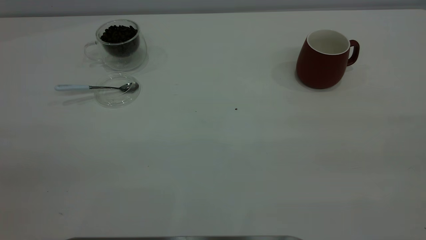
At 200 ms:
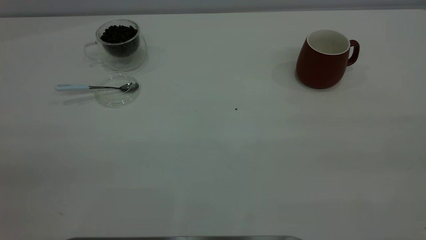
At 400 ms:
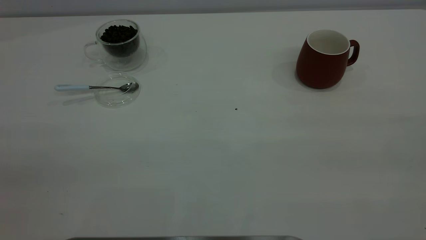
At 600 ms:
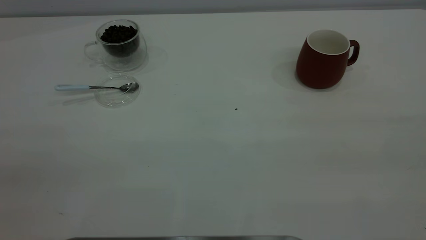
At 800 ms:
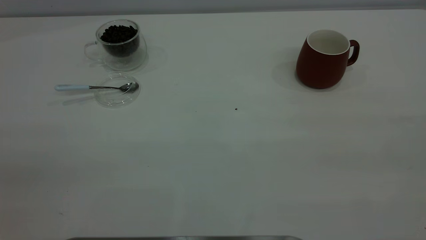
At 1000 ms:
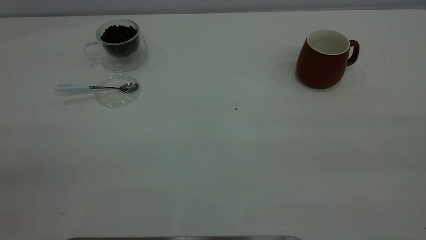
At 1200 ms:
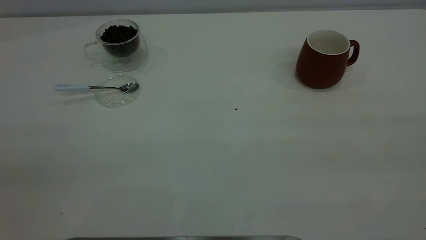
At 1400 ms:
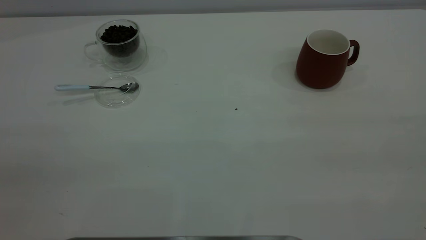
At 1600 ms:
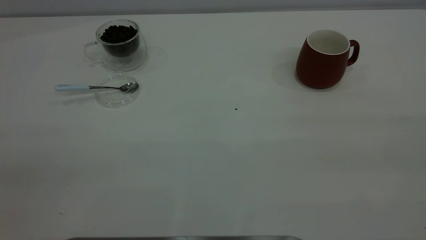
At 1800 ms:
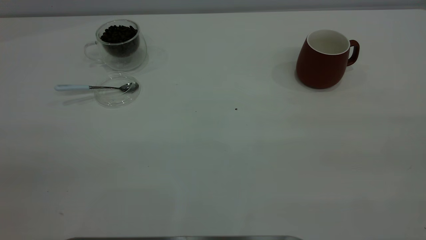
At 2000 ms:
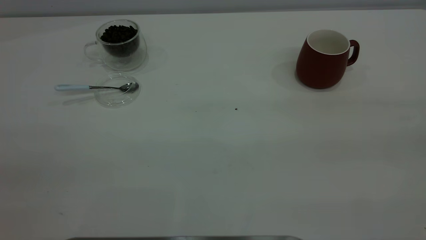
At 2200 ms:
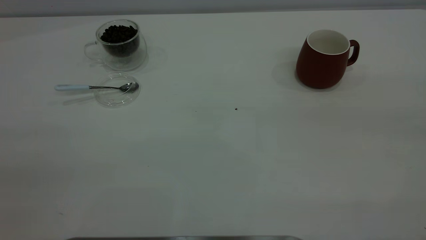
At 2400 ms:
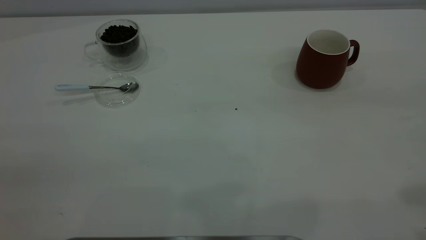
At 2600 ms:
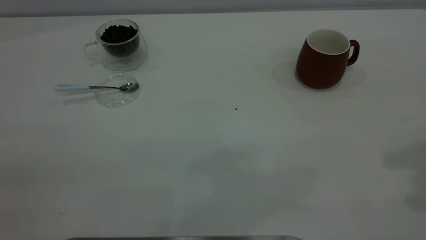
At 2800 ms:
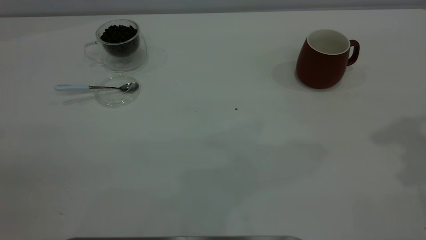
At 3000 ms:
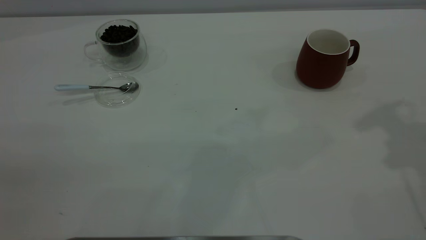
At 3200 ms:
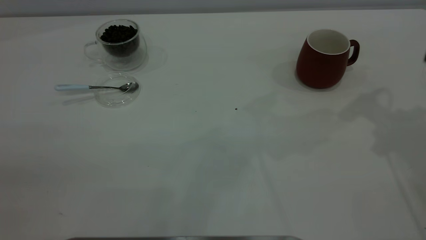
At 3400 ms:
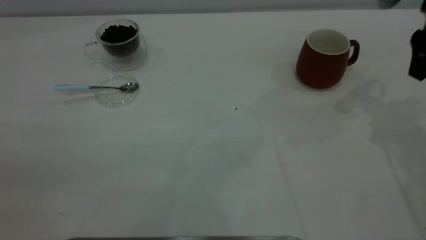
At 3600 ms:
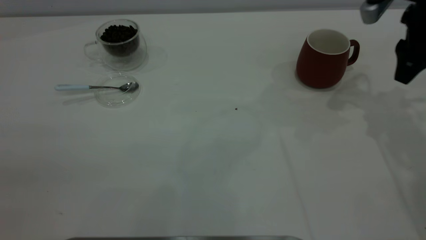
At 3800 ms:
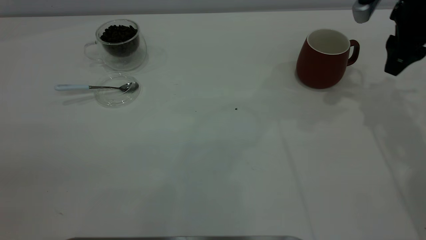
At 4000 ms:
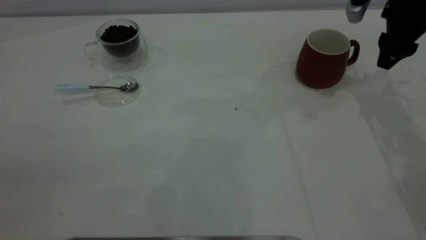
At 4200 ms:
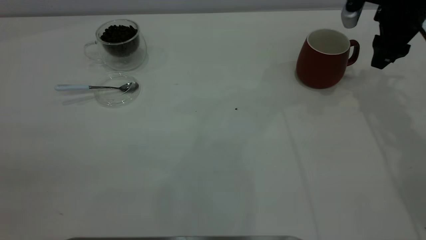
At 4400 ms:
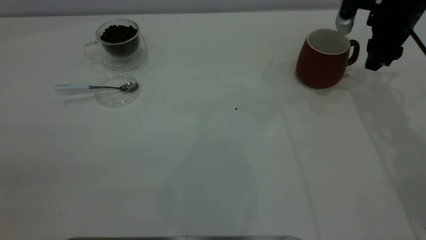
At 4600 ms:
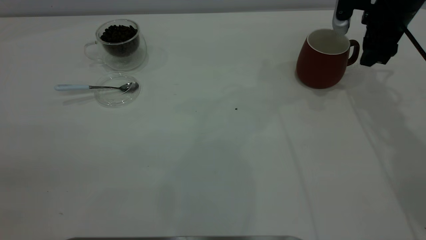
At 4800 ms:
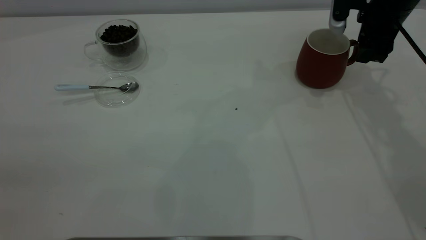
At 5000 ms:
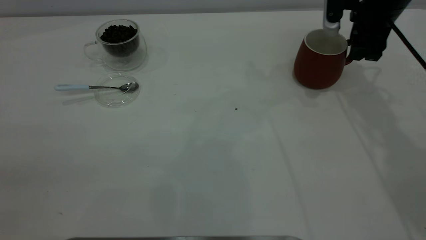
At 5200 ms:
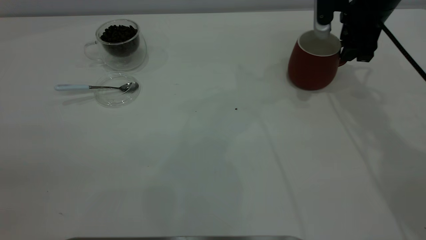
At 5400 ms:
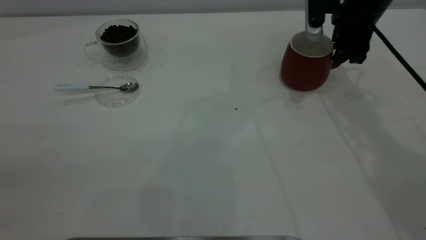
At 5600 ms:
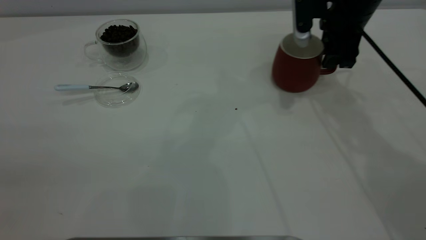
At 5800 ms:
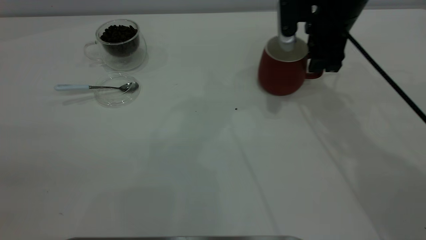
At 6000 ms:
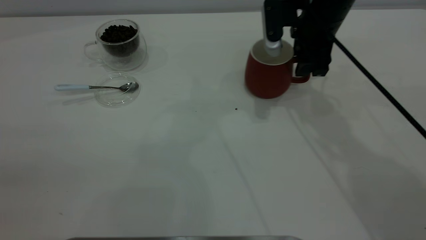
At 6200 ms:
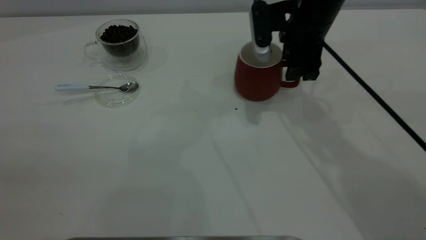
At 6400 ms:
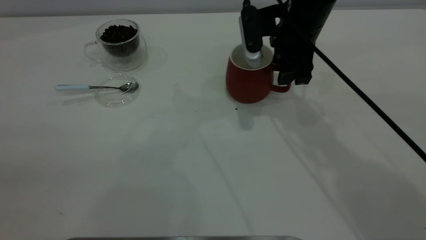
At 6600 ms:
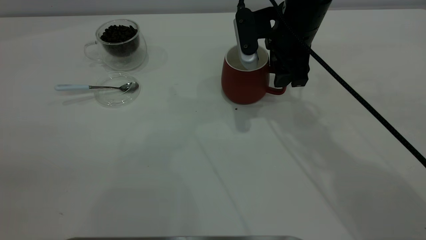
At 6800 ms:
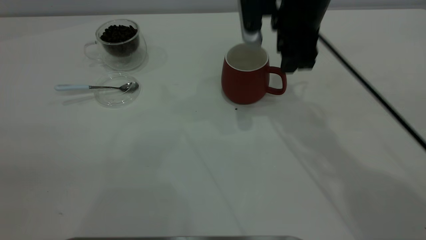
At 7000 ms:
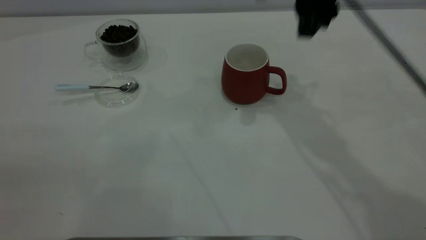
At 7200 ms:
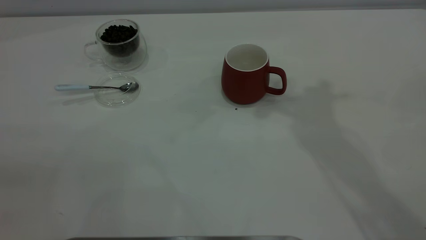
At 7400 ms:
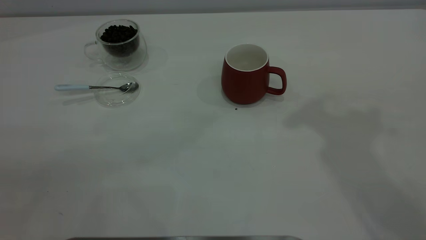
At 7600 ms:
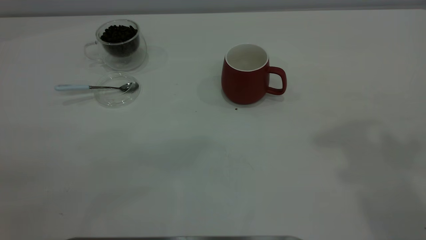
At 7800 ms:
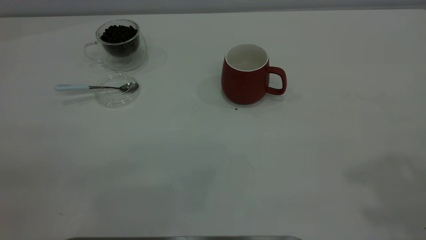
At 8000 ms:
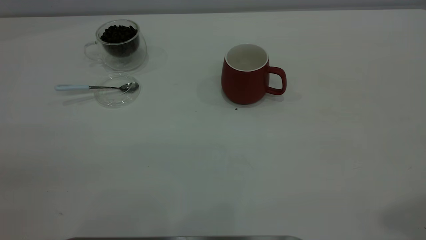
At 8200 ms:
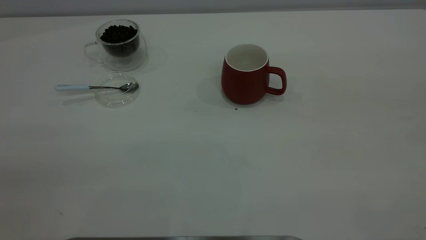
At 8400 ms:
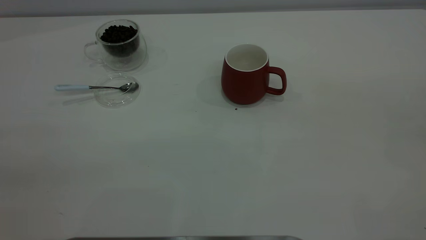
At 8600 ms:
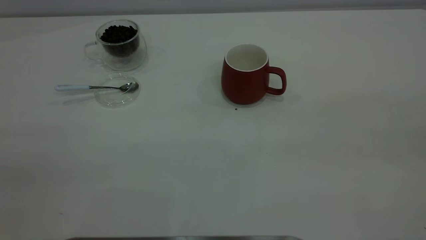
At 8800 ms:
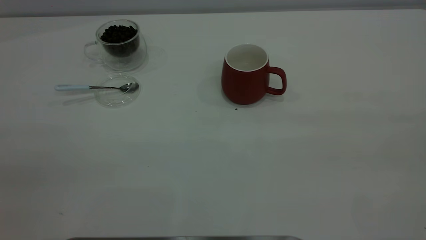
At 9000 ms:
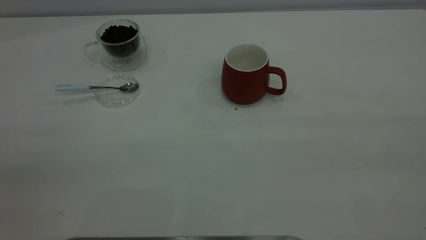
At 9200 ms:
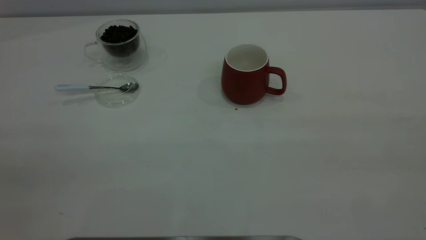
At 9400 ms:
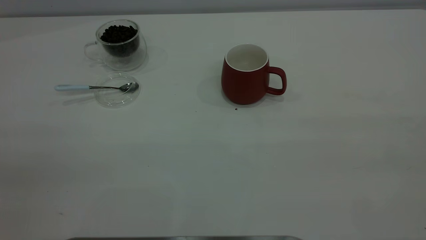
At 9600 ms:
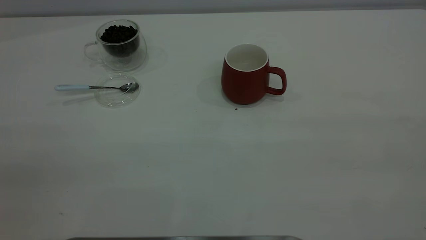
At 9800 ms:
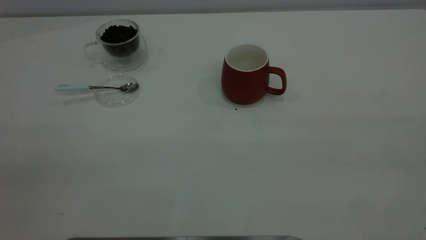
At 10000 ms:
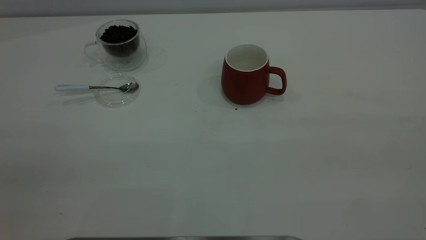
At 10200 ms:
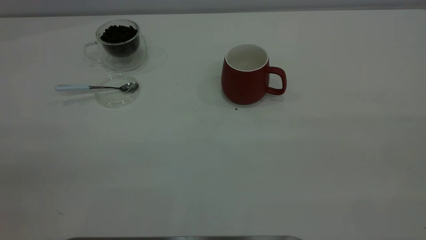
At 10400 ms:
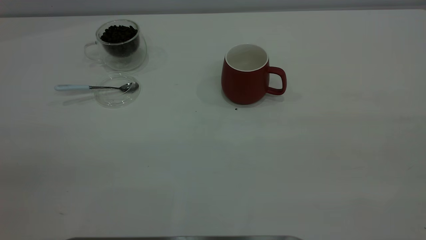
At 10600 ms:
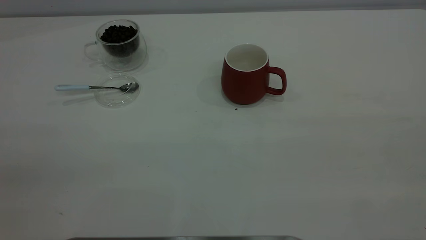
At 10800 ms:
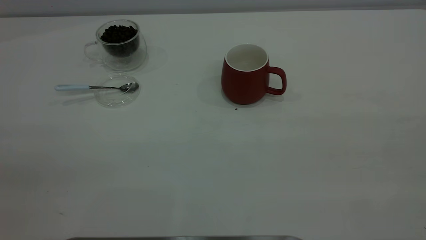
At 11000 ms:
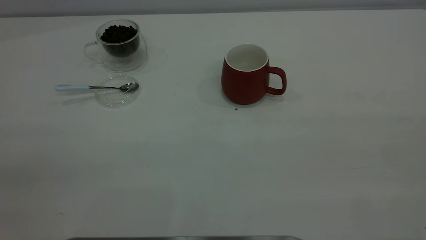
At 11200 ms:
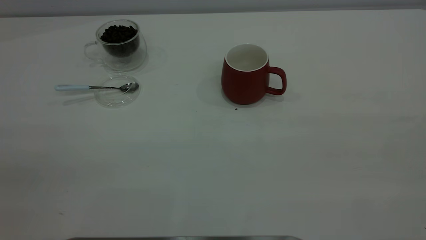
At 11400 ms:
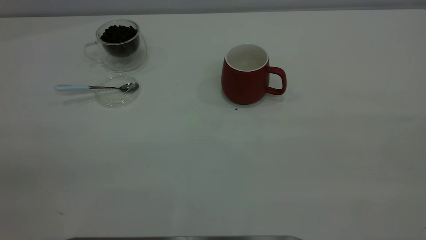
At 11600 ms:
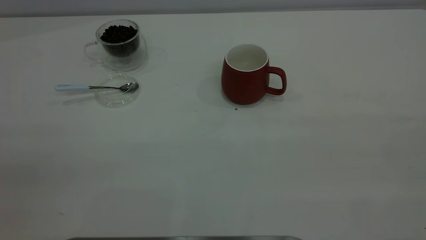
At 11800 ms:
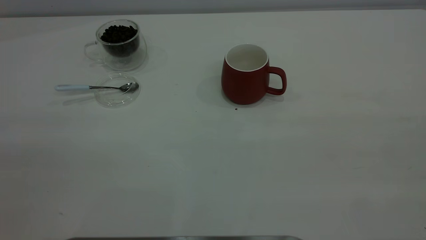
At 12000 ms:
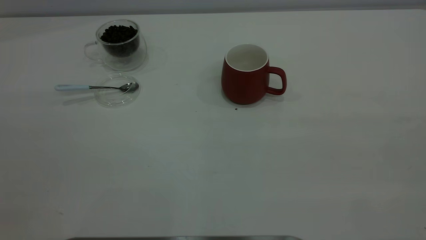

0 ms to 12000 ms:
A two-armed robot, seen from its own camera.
Task of the whole recording: the right gripper place the red cup in the center of the table, the left gripper take the blue spoon from the cup lid and scoop out the coffee beans from the coffee cup and put them into the red cup, the left gripper put the spoon back into the cup lid.
Step, 0 ms to 6600 ms: Move the cup to the center of view.
0 ms to 1600 ms: Neither gripper changes place.
3000 ms to 4400 ms: The right gripper moves downward and forward, roughly 20 cm.
4400 ms to 6000 ms: The right gripper shifts about 15 cm to the left.
6000 ms to 7600 ms: The right gripper goes about 40 cm upward and backward.

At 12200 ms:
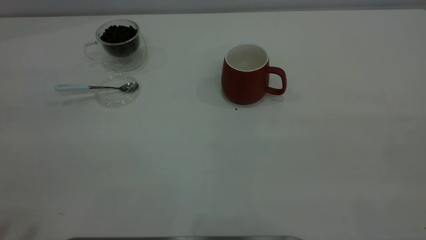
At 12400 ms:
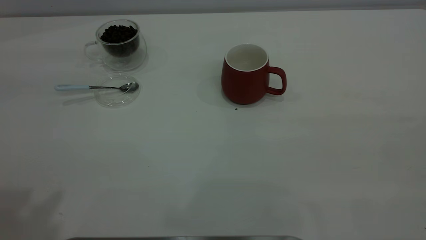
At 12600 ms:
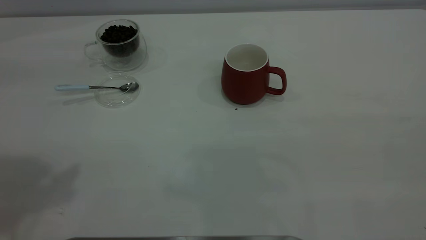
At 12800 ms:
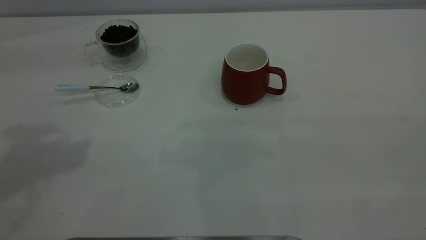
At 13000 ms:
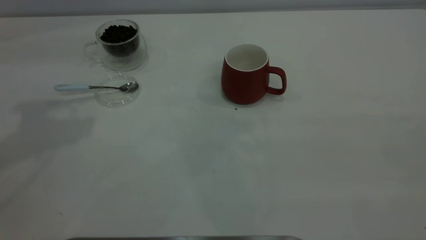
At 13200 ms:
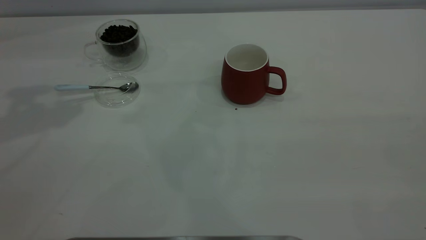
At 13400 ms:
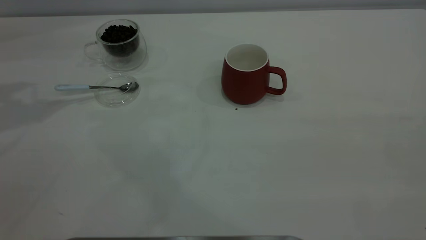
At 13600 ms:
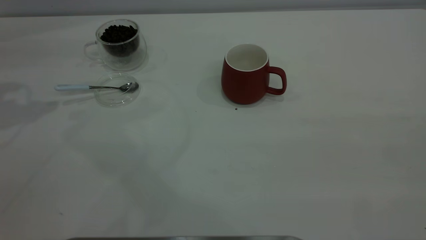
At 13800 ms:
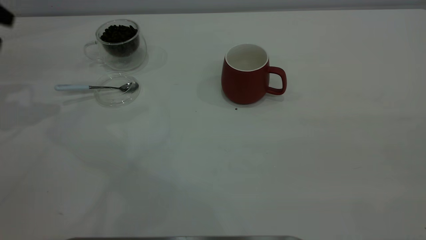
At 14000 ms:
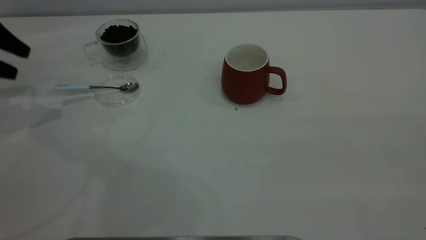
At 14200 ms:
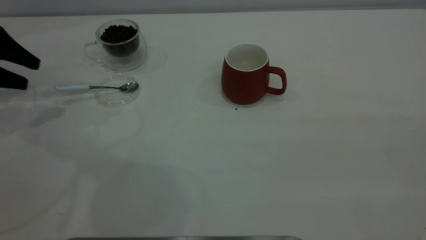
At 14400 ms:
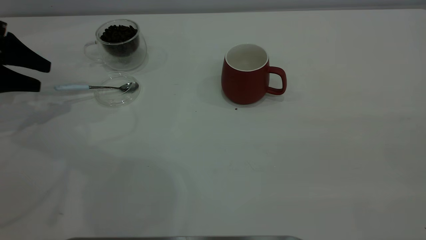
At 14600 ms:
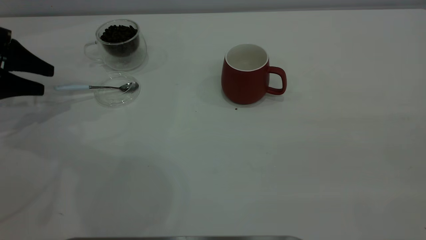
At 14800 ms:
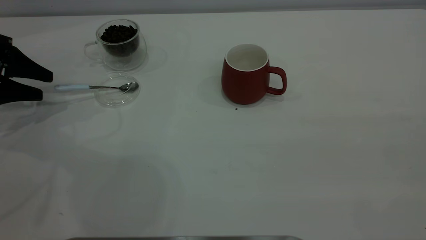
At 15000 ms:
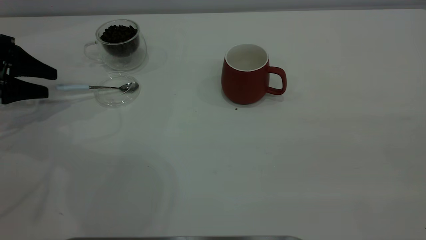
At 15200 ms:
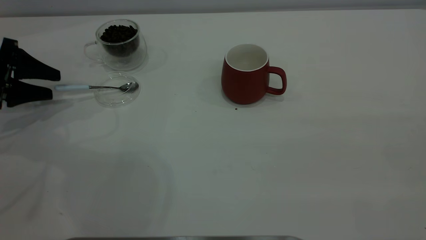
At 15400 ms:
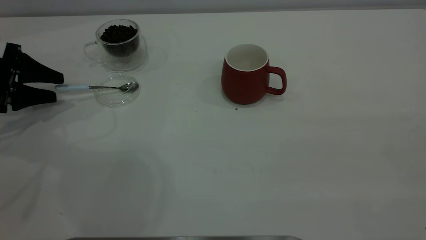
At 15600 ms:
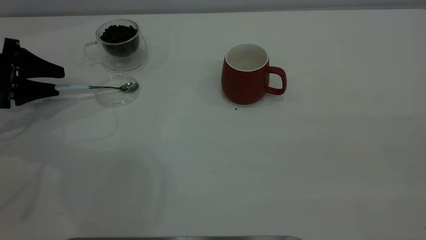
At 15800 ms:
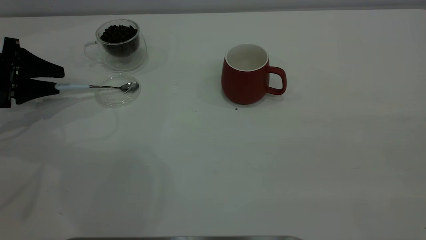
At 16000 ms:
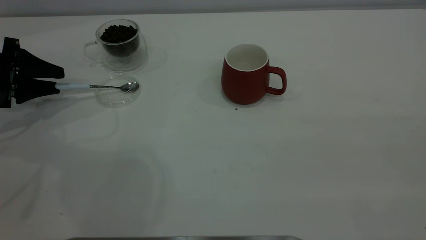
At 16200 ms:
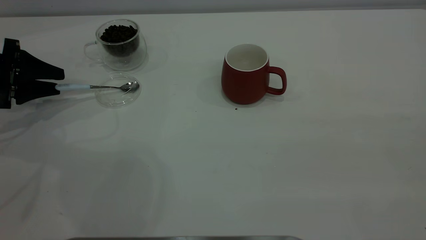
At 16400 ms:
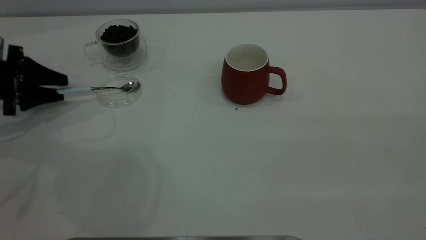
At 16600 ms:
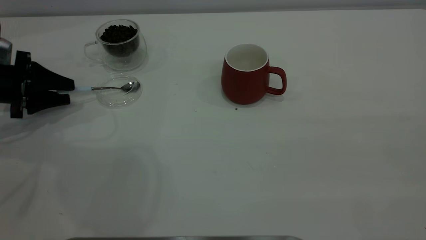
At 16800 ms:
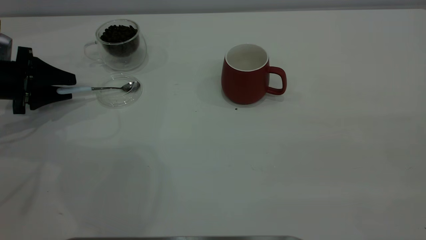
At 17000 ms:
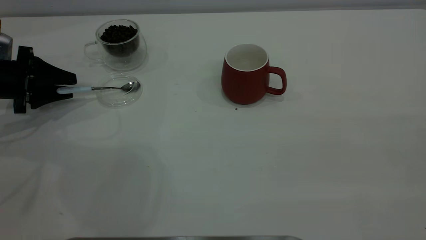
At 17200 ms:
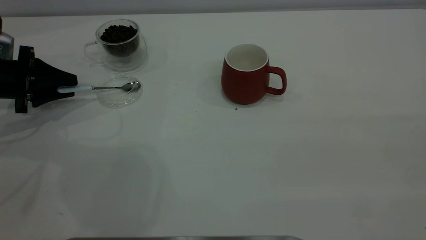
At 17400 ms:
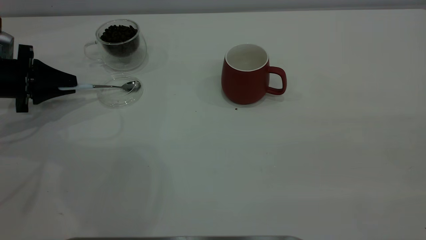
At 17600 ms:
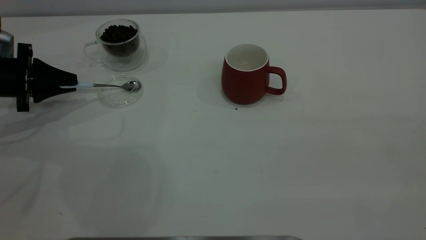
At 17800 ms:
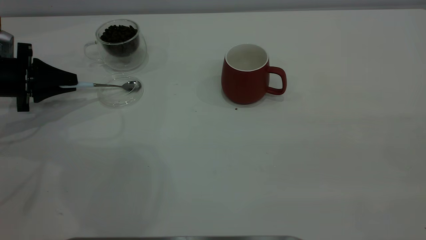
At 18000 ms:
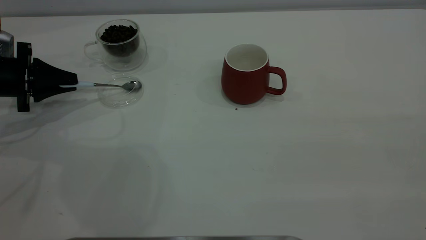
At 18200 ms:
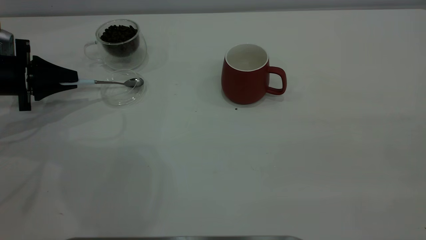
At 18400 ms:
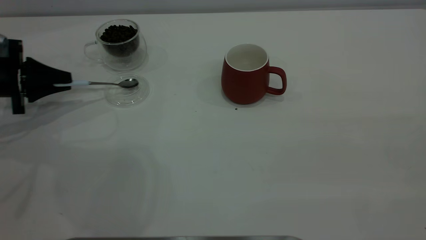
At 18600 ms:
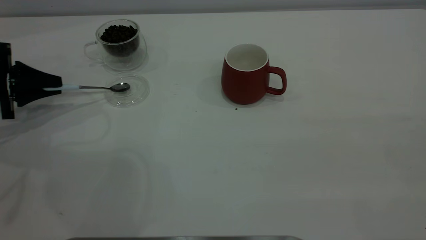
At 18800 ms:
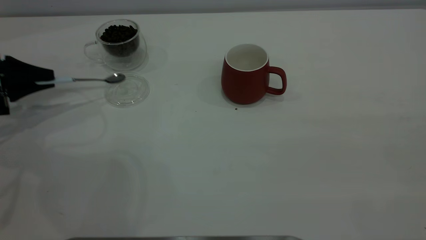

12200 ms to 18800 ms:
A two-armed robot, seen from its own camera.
Task of the whole recording: the right gripper place the red cup in the center of the table, the left gripper take the blue spoon from the cup lid and scoop out the coffee beans from the coffee cup and put them into the red cup, the left gripper put the spoon back into the cup lid.
Step, 12200 ms to 18600 ms: Pick up the spoon.
13800 ms to 15400 ms: The left gripper moves downward, approximately 15 cm.
15400 ms to 17200 ms: The left gripper closes.
17200 ms to 18800 ms: The left gripper closes.
